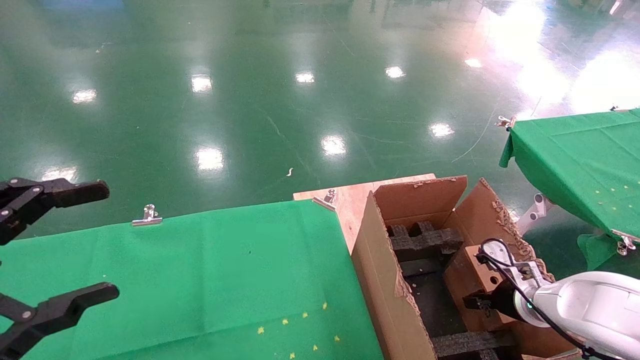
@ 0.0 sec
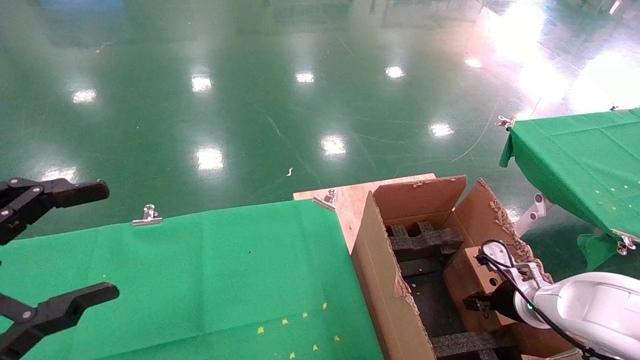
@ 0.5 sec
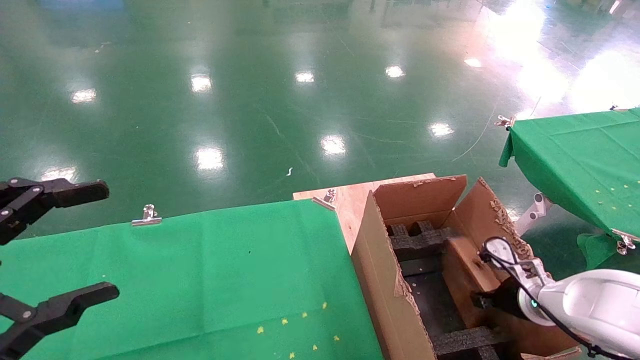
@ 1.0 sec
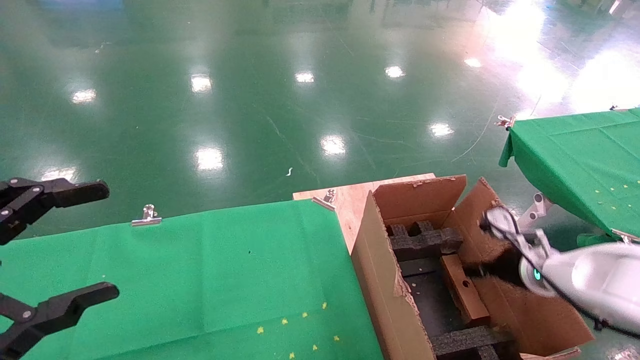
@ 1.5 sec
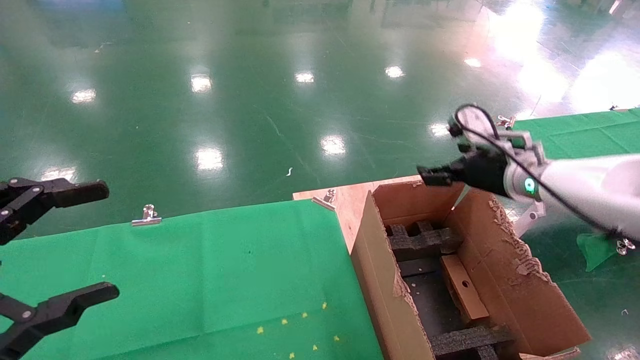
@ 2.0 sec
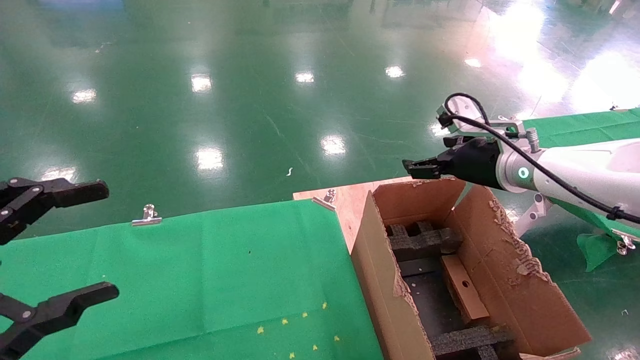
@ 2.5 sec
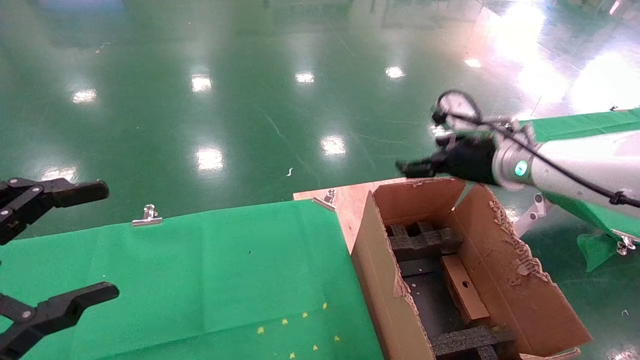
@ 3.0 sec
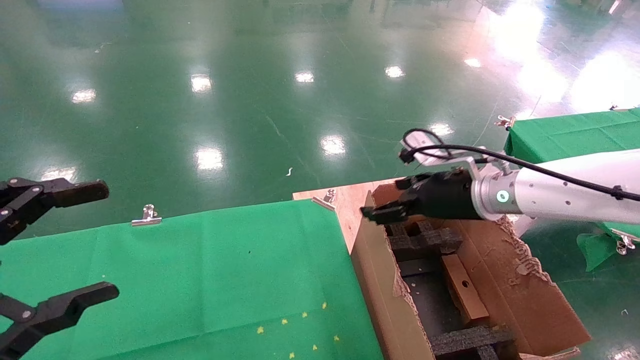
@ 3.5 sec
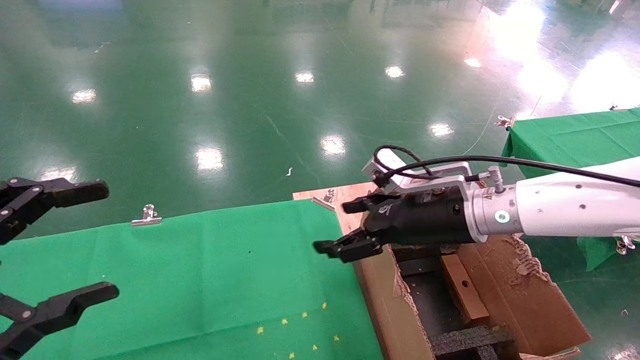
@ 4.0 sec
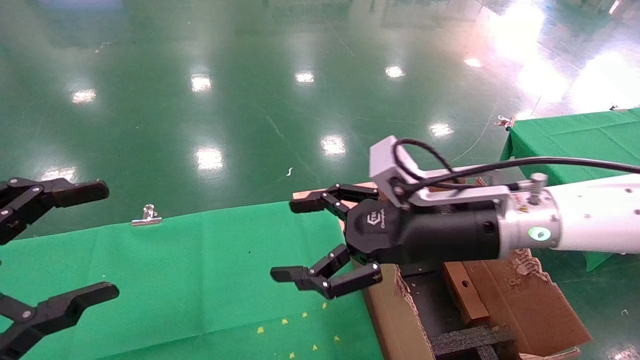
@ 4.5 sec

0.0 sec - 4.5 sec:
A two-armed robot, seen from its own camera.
Task of the whole recording: using a robotic arm to pick up a cardboard box and palace it the carton.
Step, 0.0 sec - 2.0 sec: Place the mouse and the power cord paper box into the container.
0.0 sec - 2.0 sec: The right gripper shifts approximately 20 cm upward, and opens.
2.0 sec - 4.5 sec: The right gripper shifts some 20 cm to the left and backward.

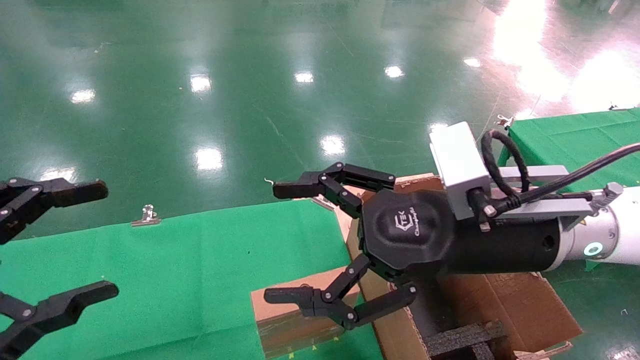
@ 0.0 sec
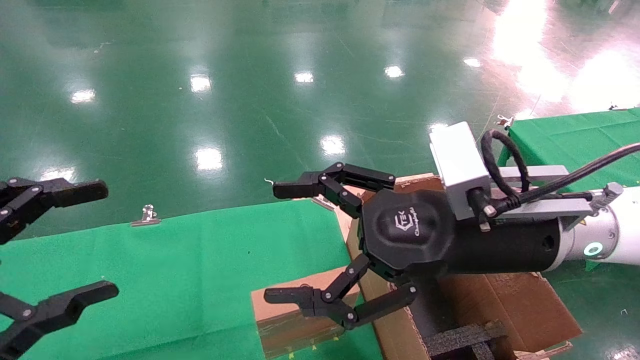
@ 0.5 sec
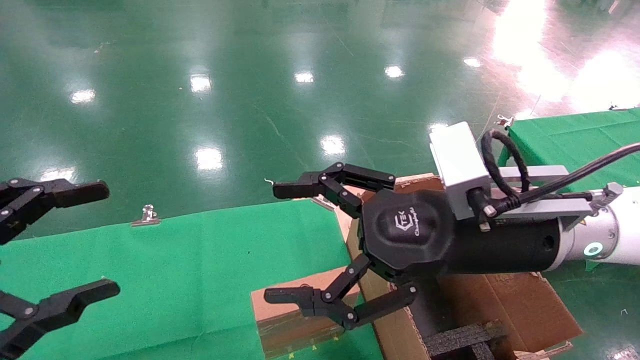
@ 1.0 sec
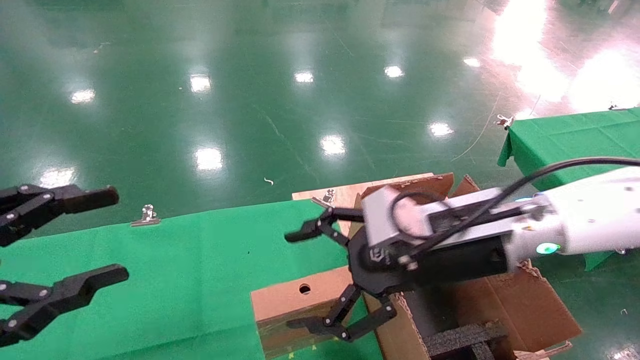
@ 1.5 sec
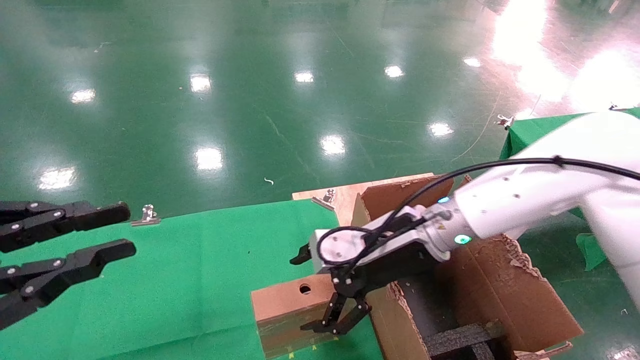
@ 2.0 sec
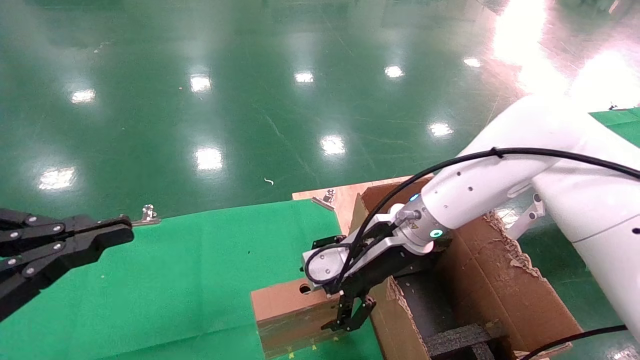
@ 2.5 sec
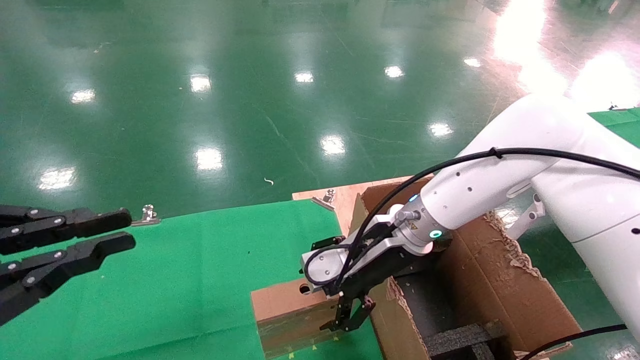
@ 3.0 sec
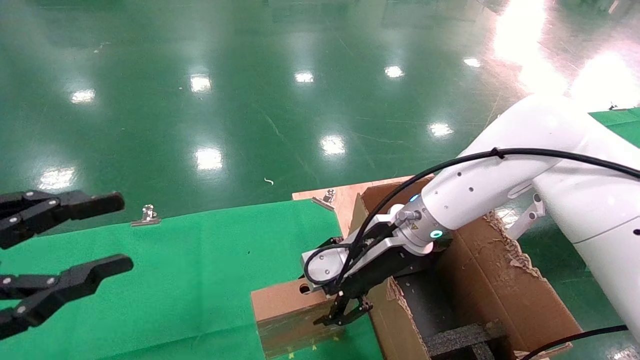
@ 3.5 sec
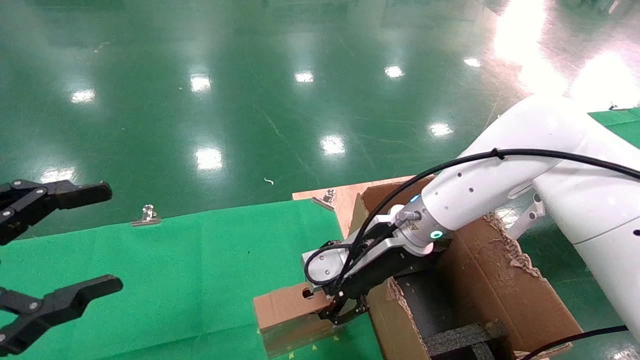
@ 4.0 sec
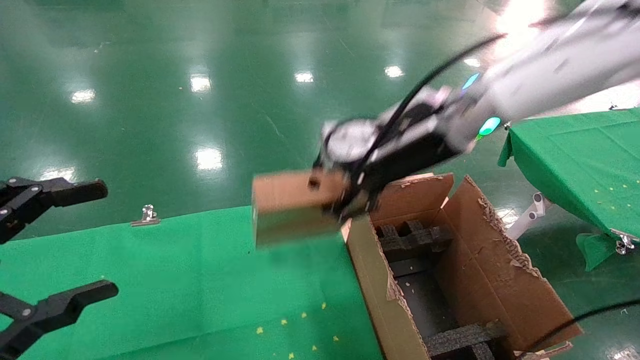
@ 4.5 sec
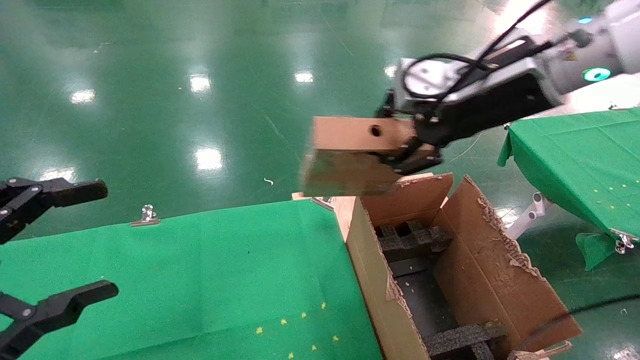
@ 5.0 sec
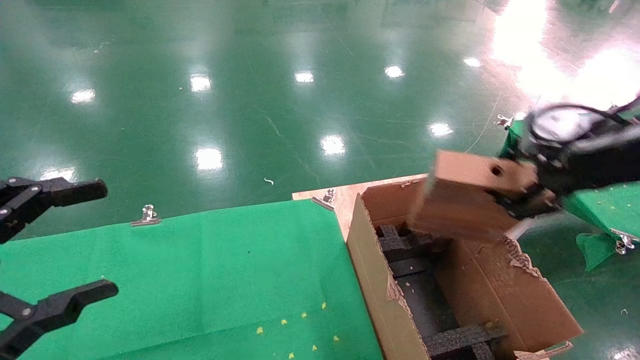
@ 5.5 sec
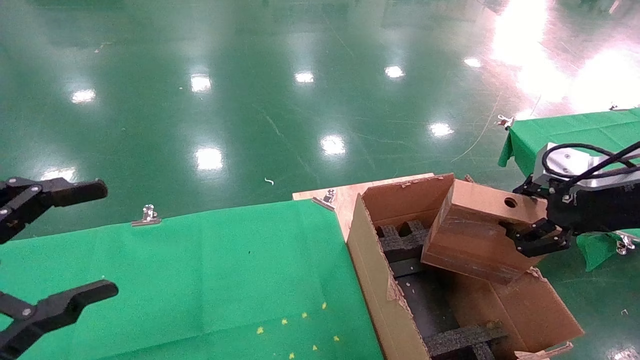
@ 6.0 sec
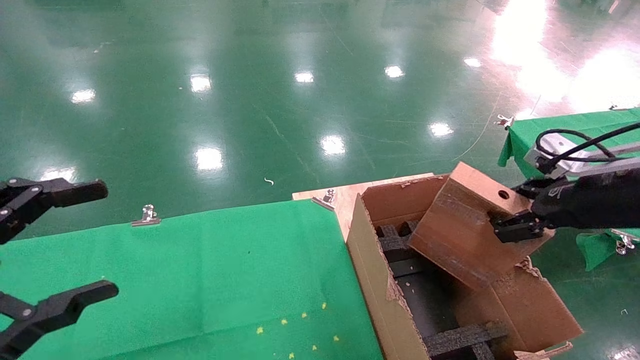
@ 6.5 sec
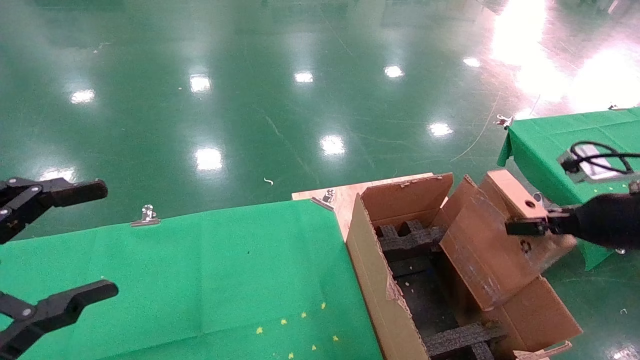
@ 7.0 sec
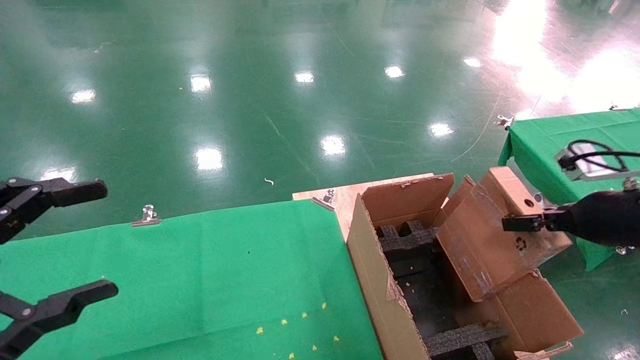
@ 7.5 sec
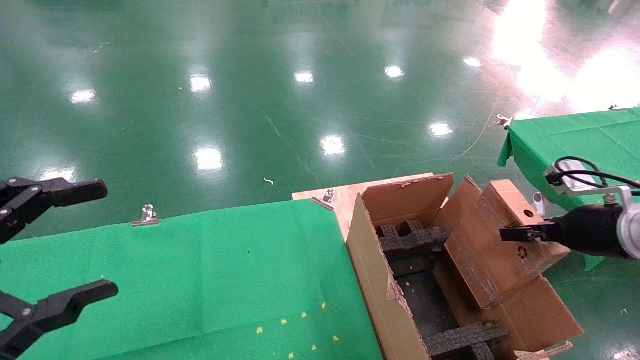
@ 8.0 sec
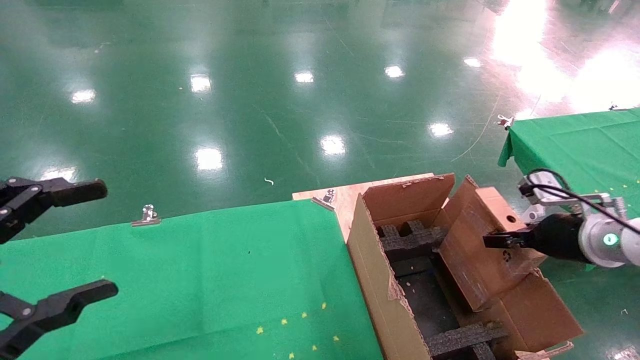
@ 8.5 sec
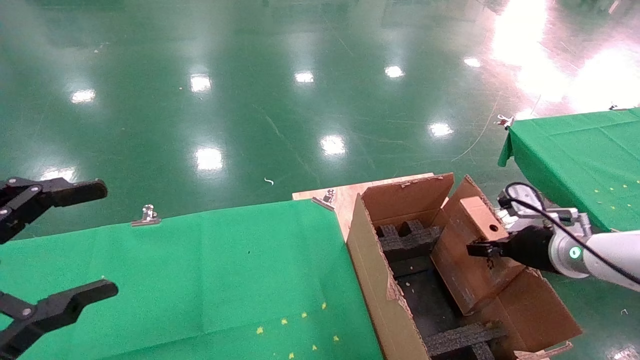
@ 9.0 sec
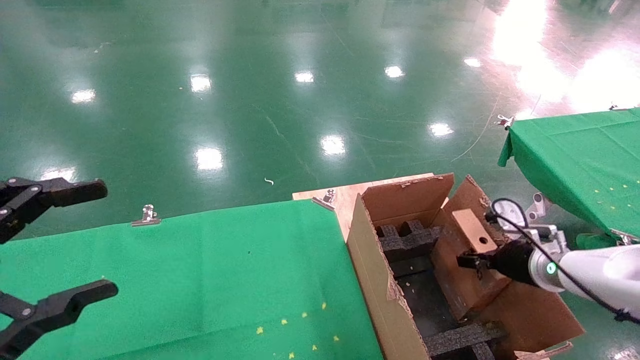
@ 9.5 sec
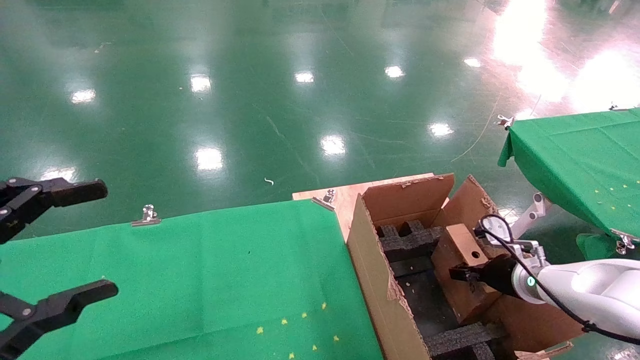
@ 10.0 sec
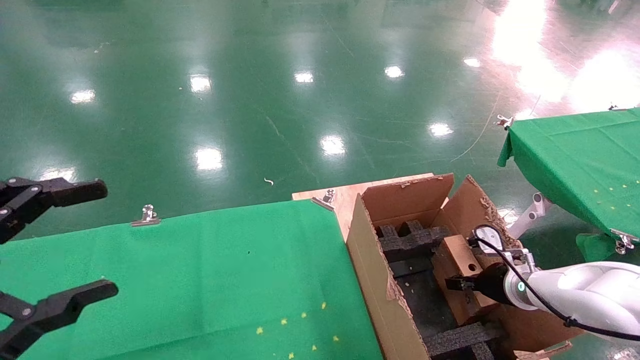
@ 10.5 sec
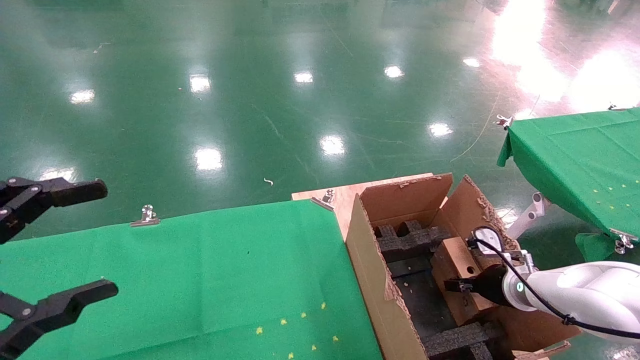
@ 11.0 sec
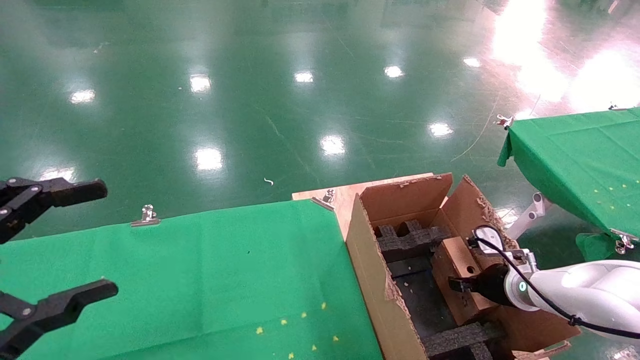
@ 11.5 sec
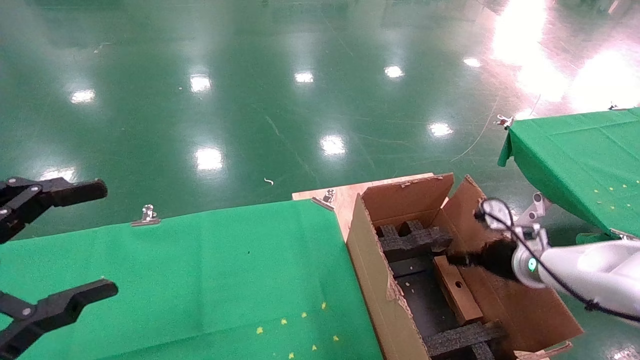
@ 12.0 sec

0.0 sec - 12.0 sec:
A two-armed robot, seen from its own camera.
Task of the whole recording: using a robotic arm to pick up a cardboard box and palace it the carton.
Step, 1.5 sec - 3.5 sec: Pick up the mouse and the power cord paper box.
Step, 4.0 sec - 11.5 sec: Place the mouse and the power cord paper box into the container.
0.0 sec - 2.0 sec: The left gripper closes its fingers. The right gripper moves forward and downward, about 10 cm.
2.0 sec - 4.0 sec: The left gripper opens its fingers; the right gripper closes.
4.0 sec - 6.0 sec: The right gripper travels to the right and backward by about 30 cm.
6.0 sec - 8.0 sec: The right gripper heads downward and forward, covering some 10 cm.
8.0 sec - 10.0 sec: The right gripper travels downward and forward by about 15 cm.
10.0 sec - 12.0 sec: The right gripper heads upward, covering approximately 5 cm, and opens.

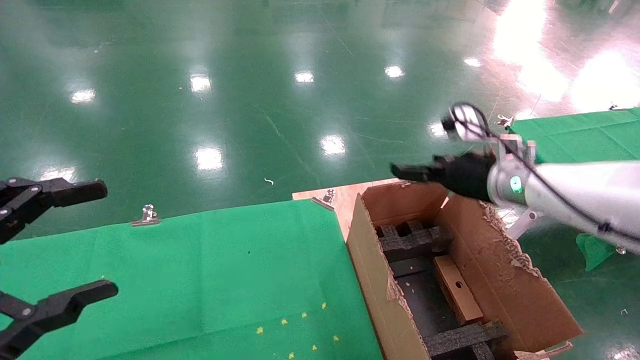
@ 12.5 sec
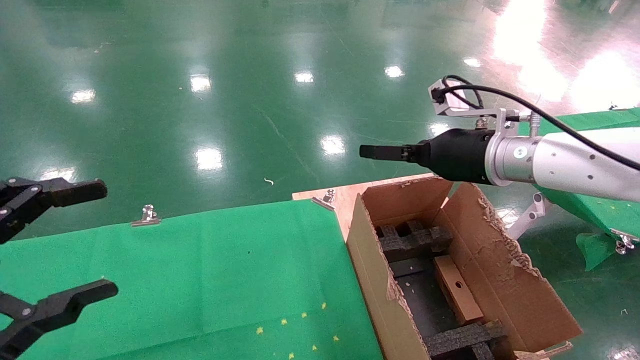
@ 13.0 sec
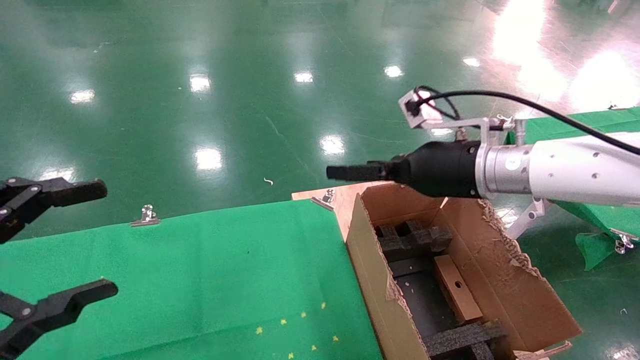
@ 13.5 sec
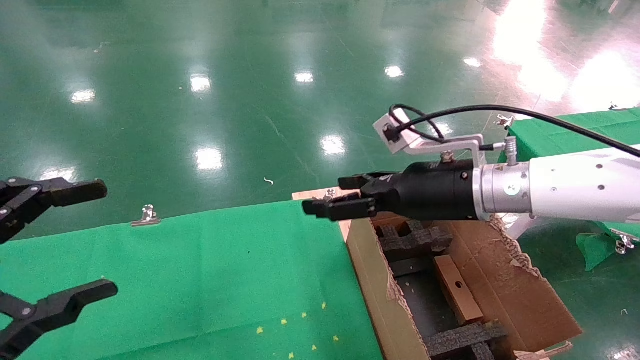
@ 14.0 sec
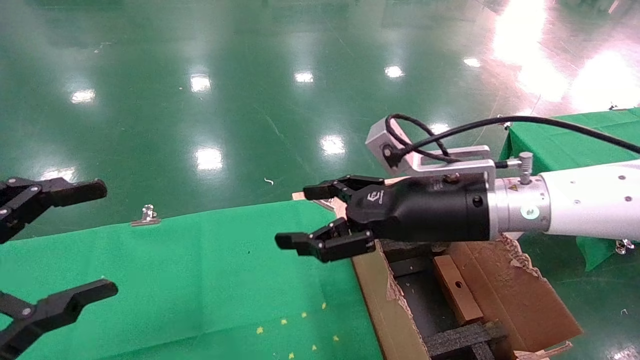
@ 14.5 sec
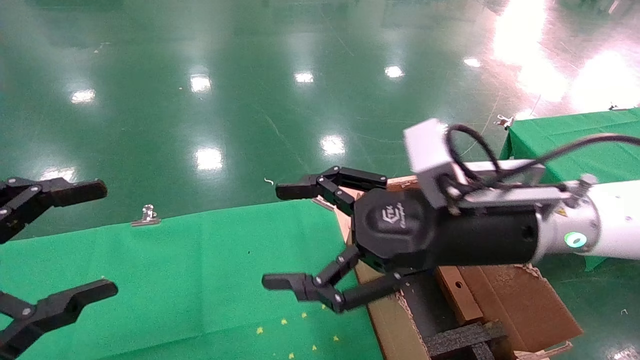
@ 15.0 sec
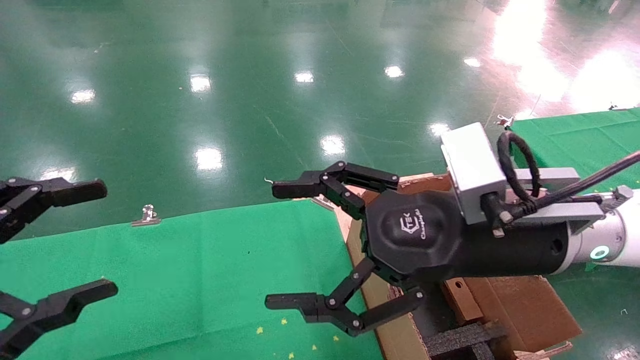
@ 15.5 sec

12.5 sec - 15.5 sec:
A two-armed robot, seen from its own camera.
Task of the whole recording: using a robotic arm to pick up a cardboard box and palace it the carton.
12.5 sec - 14.0 sec: The right gripper heads to the left and backward, covering some 10 cm.
14.0 sec - 15.5 sec: The right gripper heads backward, covering approximately 10 cm.
